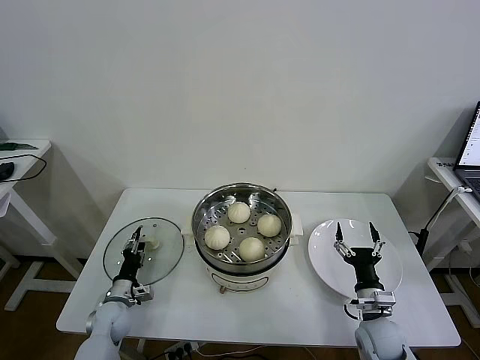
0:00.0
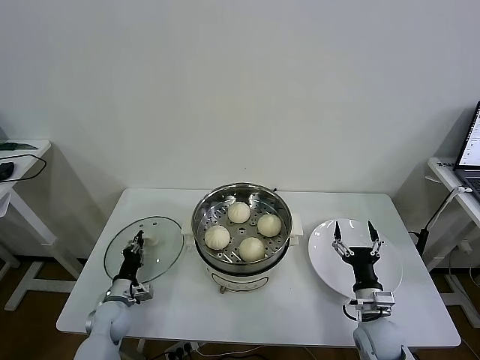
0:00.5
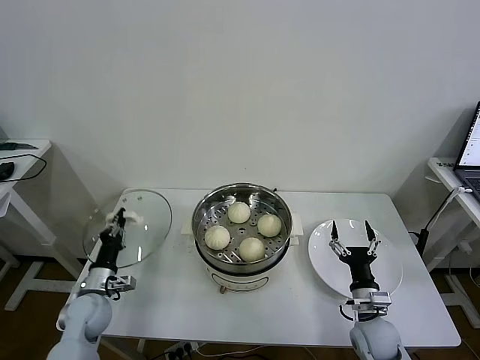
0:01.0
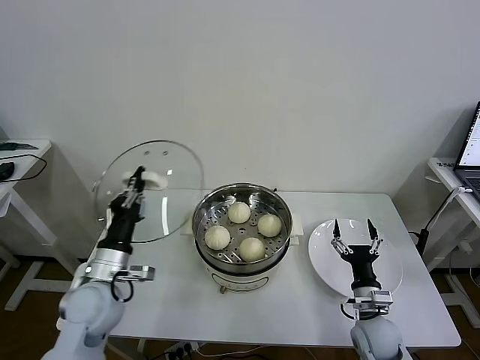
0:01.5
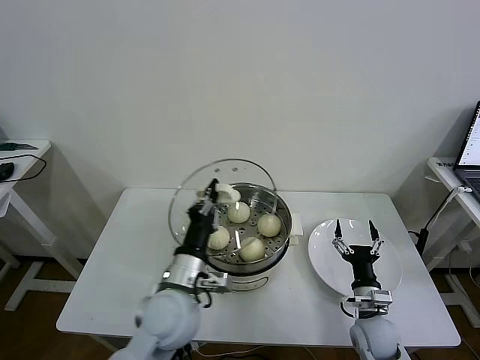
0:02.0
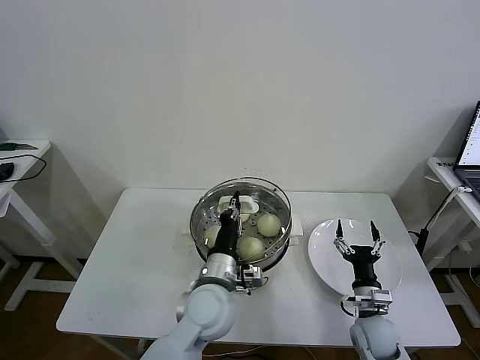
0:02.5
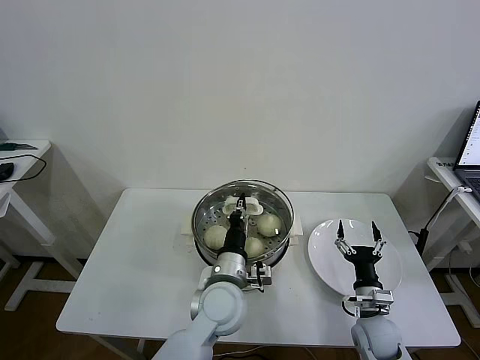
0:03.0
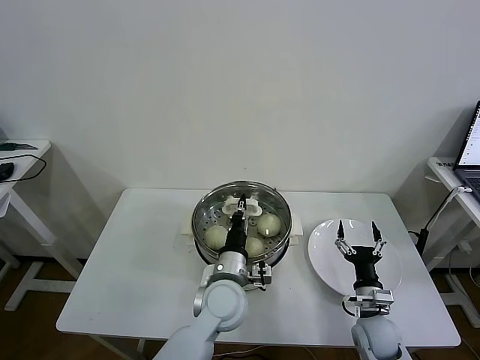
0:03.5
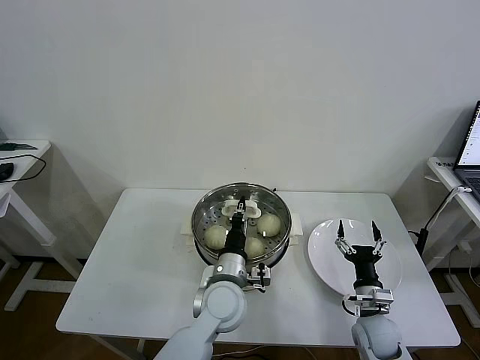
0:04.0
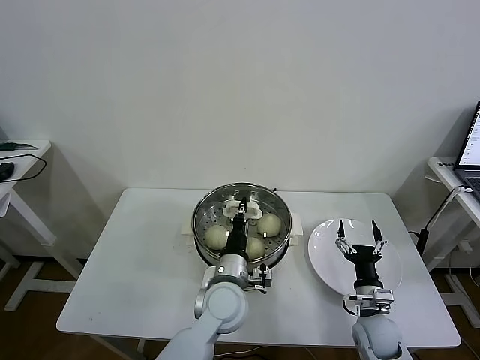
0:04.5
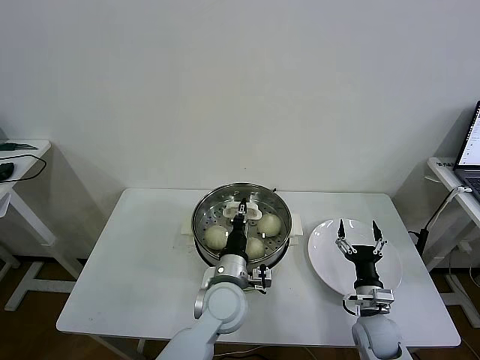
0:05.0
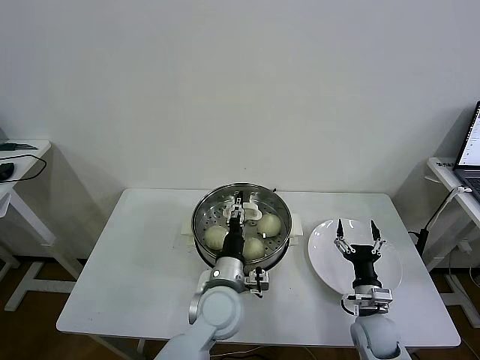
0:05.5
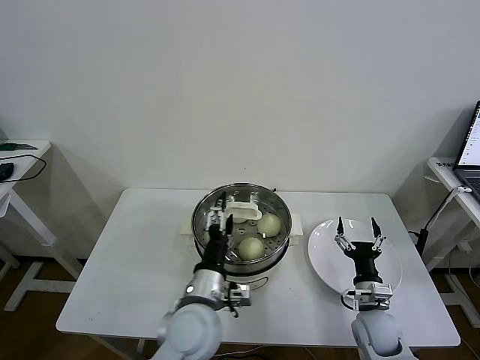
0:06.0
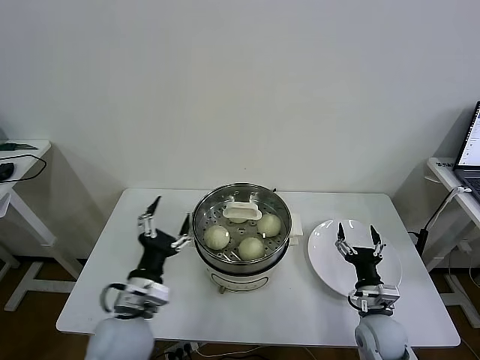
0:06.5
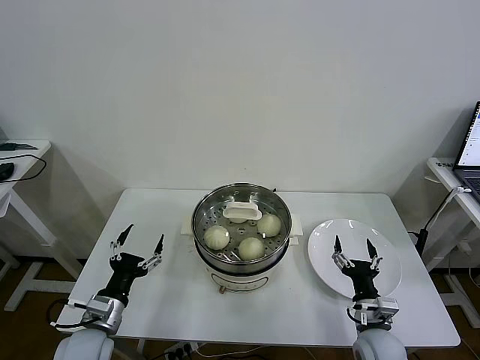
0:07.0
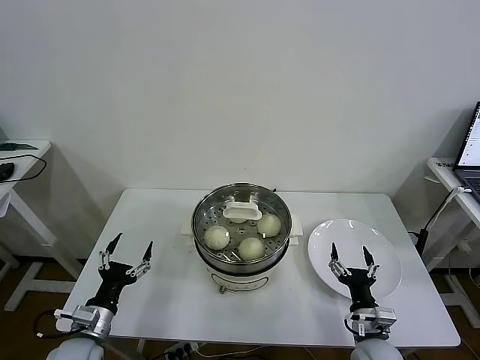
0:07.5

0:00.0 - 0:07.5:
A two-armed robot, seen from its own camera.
Task of the whole recording: take steamed baozi put them in steamer then cover it.
Step, 0:01.0 - 0:05.5: Place the pot lid on the steamer with left gripper.
0:00.0 - 0:02.0: The left gripper travels upward and to the right by about 30 cm, and closes.
0:02.0 - 0:04.0: The left gripper heads to the right and downward, covering roughly 10 cm.
0:04.0 - 0:05.5: The left gripper opens up.
0:05.5 - 0:07.5: The left gripper heads to the left, covering roughly 30 cm, and opens its fingers. Meanwhile the right gripper travels backward by about 5 cm.
